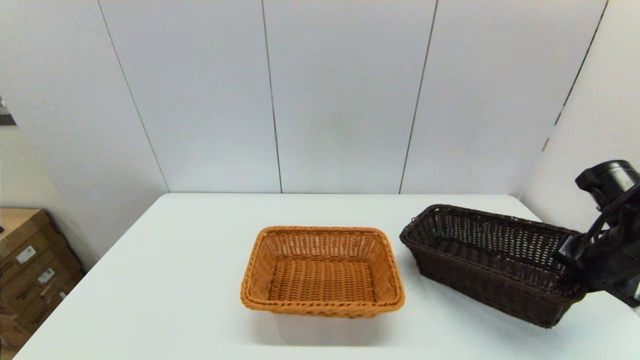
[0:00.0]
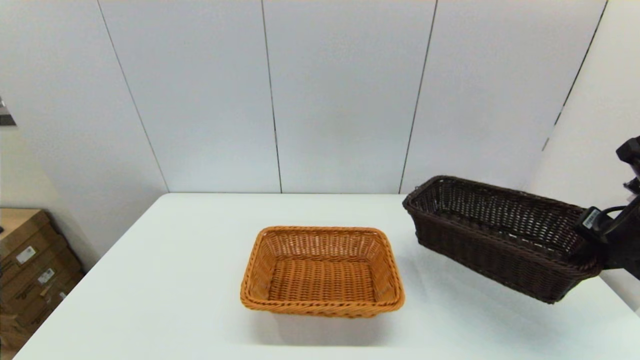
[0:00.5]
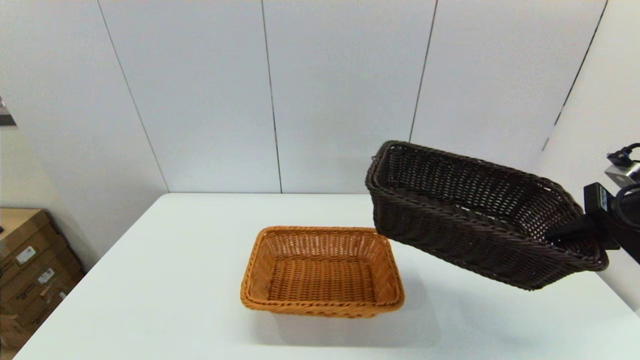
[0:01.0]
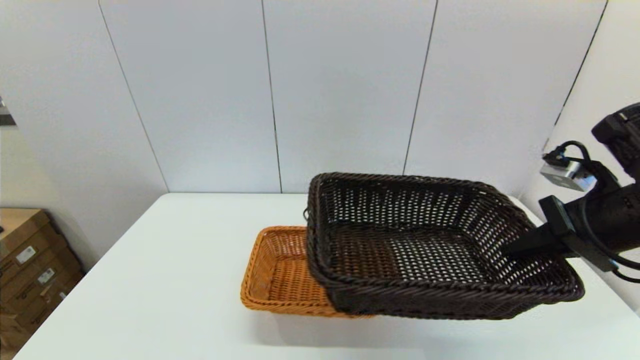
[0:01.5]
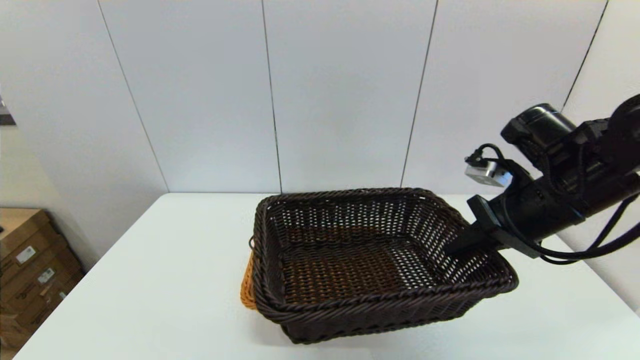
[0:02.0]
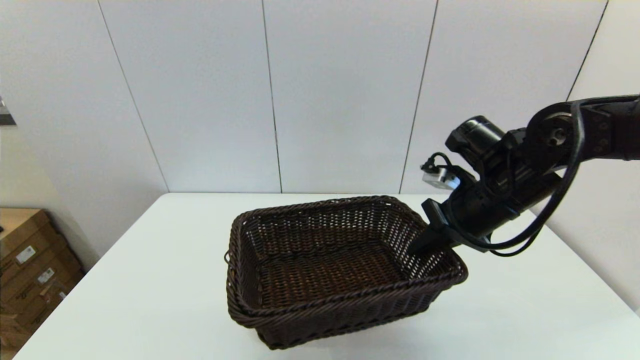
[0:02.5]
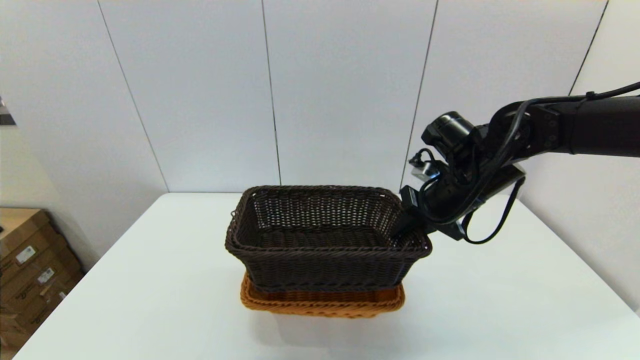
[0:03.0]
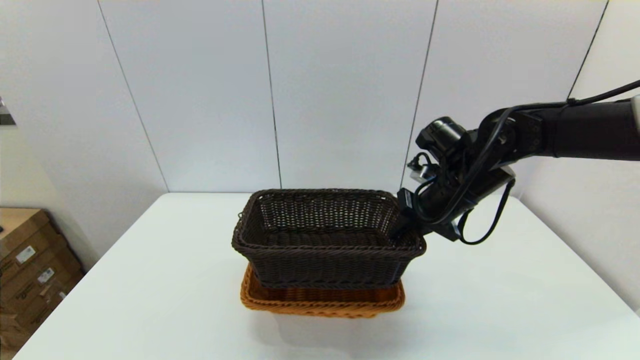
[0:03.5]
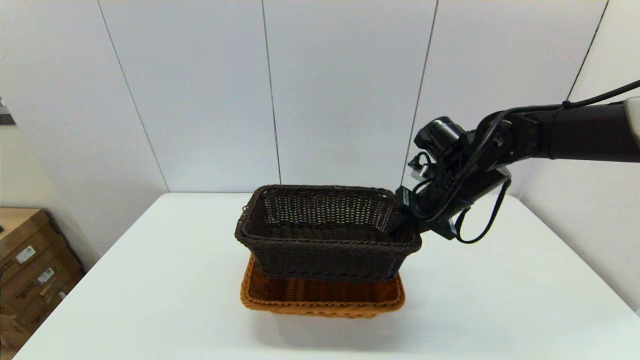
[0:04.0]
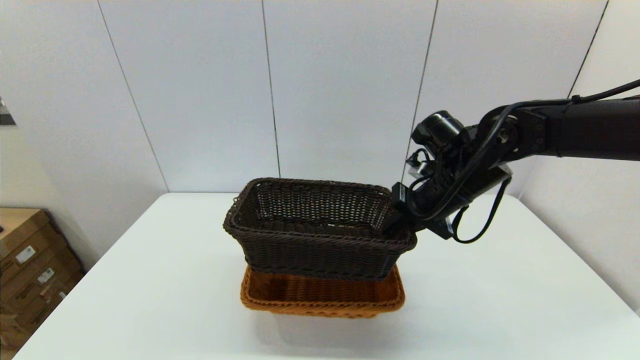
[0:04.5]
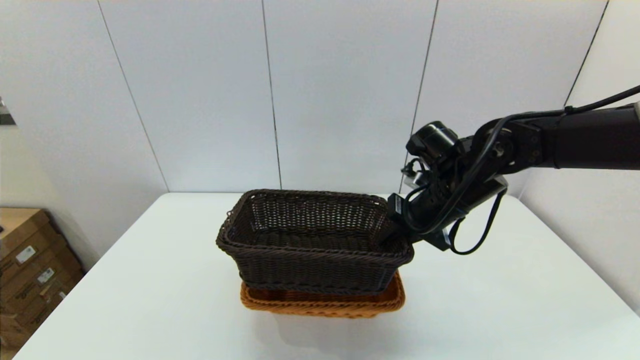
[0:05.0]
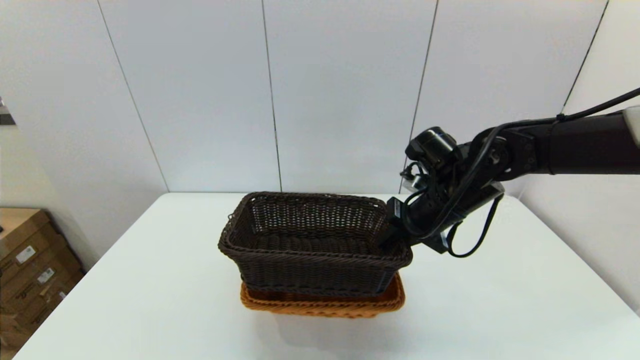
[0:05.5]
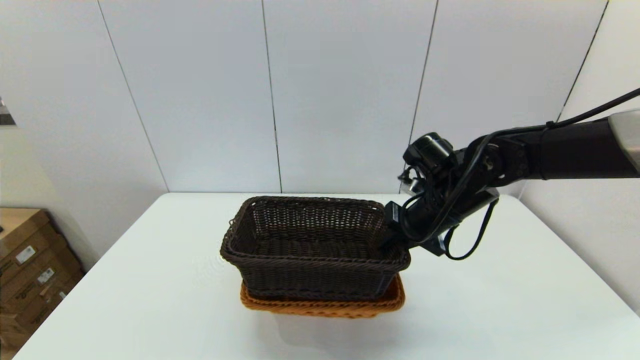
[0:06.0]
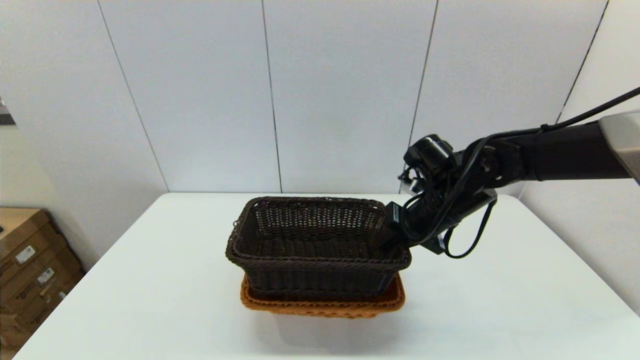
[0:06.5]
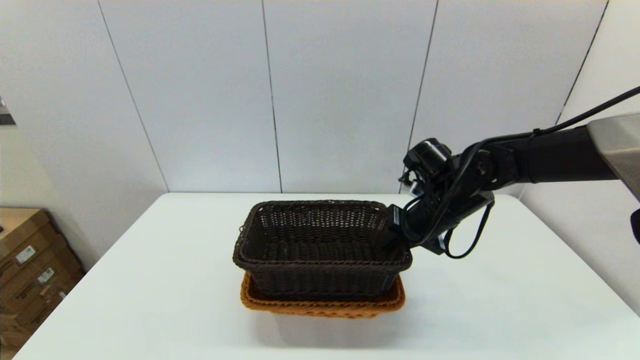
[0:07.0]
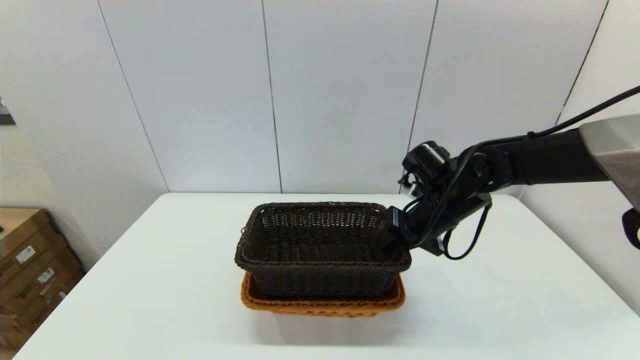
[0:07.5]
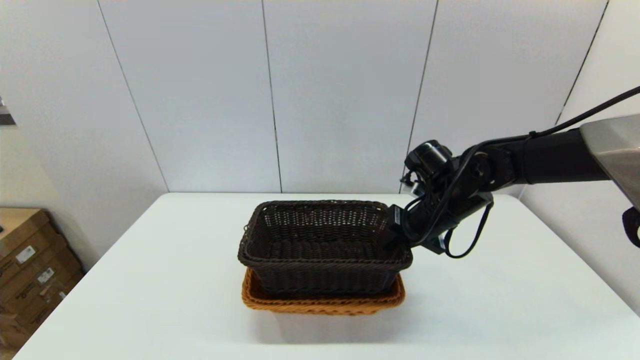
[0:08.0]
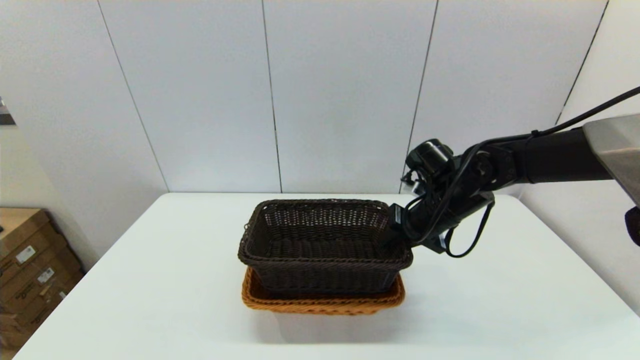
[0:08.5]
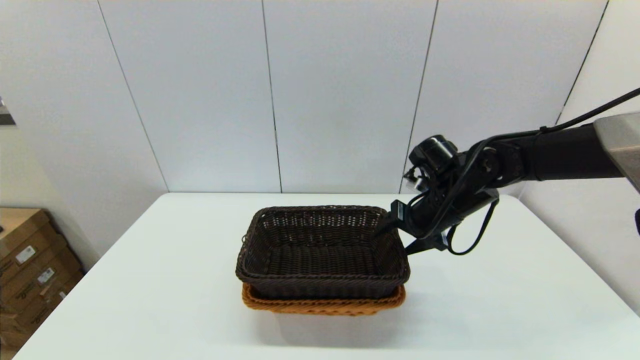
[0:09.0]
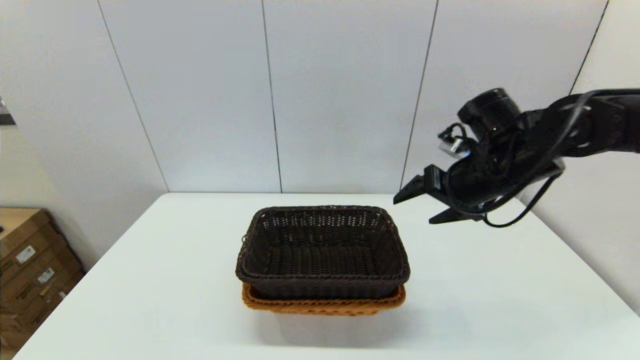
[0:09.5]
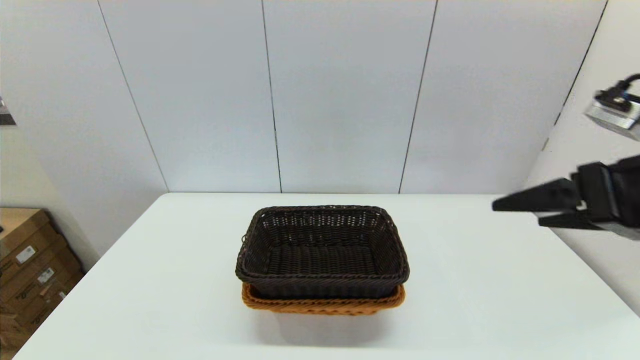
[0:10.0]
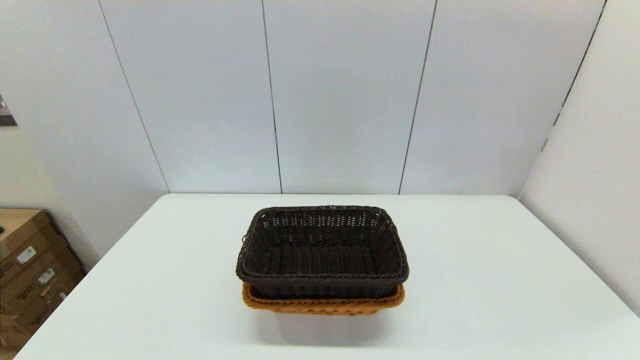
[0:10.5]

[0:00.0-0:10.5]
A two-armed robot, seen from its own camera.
Task of the whole recording: stack a basket on top of another basket.
Step, 0:00.0 to 0:09.5: Place the dark basket into the light color basket with the right gripper.
0:00.0 to 0:02.0: The right gripper moves to the left and upward, about 15 cm.
0:02.0 to 0:04.0: The right gripper goes about 10 cm forward and to the left.
0:04.0 to 0:08.5: There are only small adjustments of the grippers.
0:08.5 to 0:10.5: The right gripper goes roughly 35 cm backward and to the right, and opens its fingers.

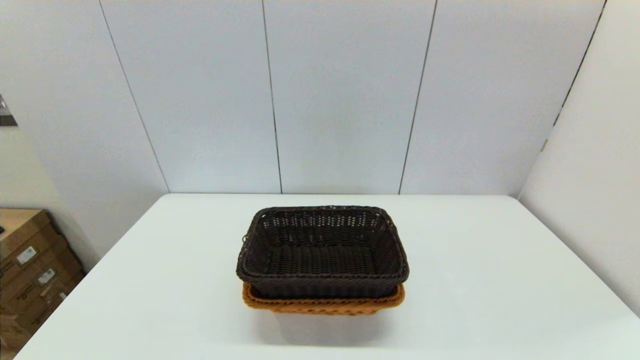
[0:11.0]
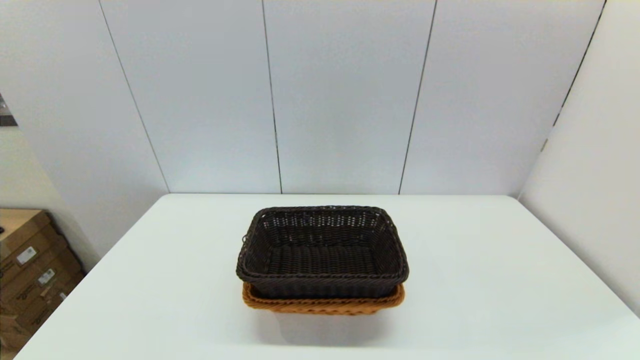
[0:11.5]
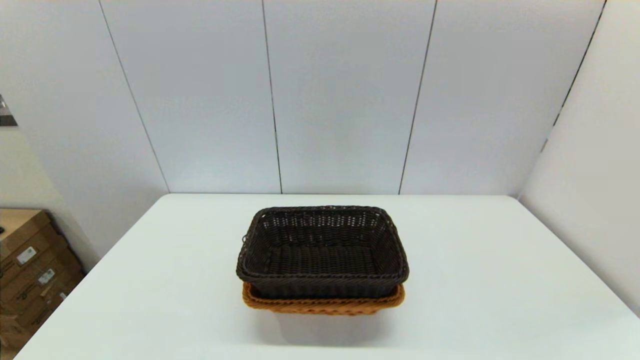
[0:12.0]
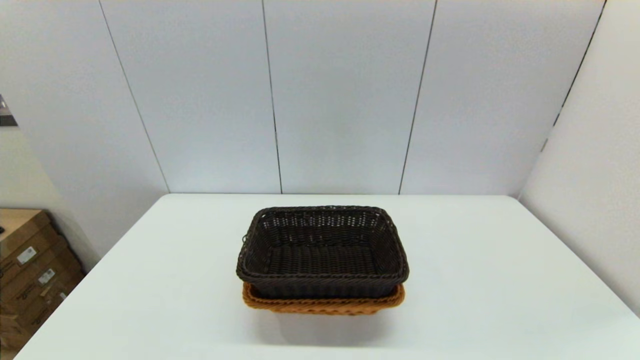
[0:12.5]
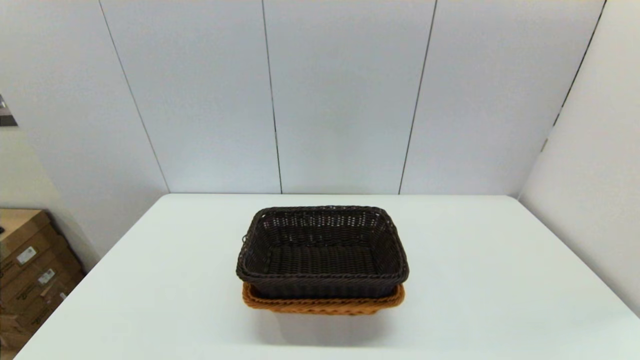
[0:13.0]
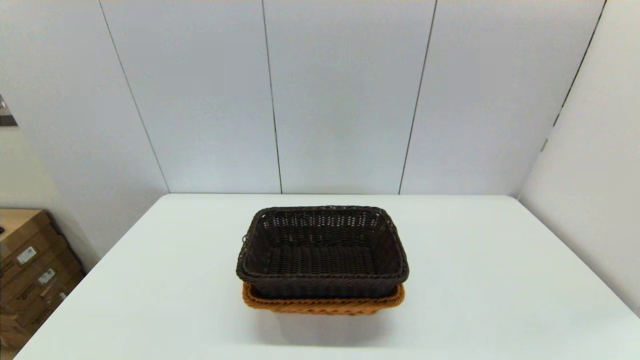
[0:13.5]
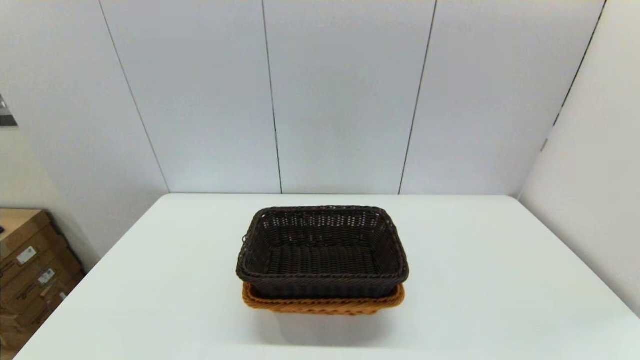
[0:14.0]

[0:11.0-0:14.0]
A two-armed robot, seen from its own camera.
Task of the whole recording: stack a basket on top of another basket.
0:12.5 to 0:14.0: Neither gripper changes place.
